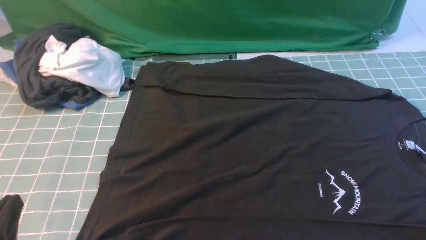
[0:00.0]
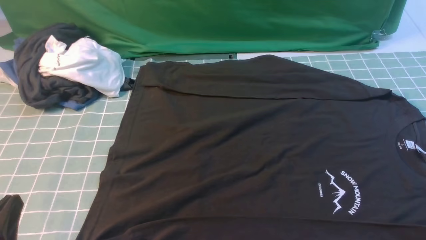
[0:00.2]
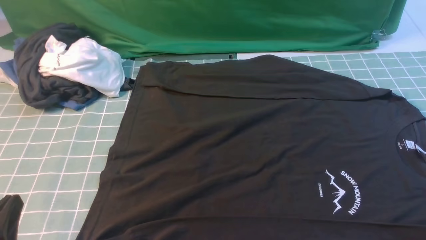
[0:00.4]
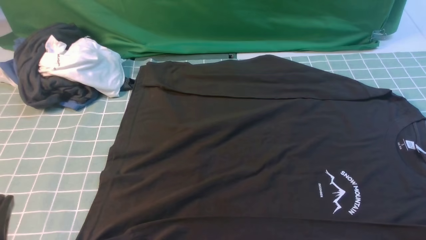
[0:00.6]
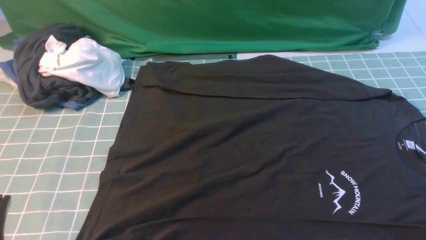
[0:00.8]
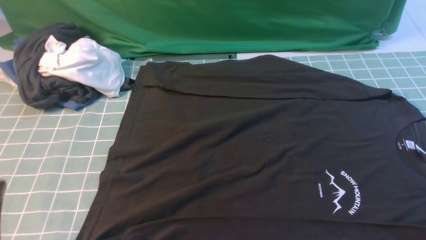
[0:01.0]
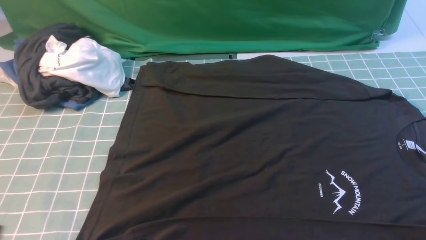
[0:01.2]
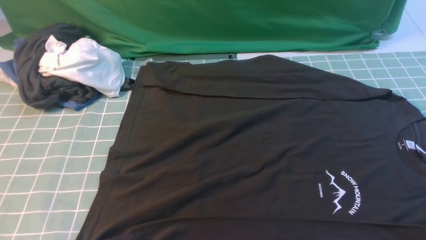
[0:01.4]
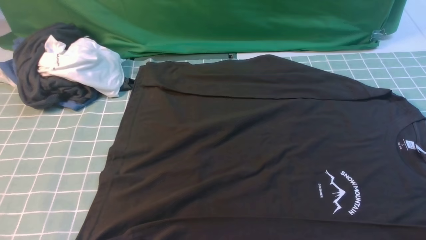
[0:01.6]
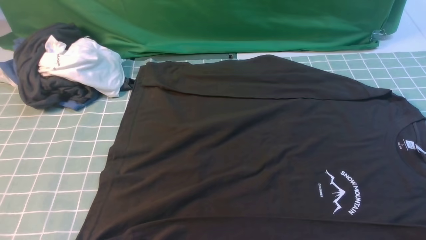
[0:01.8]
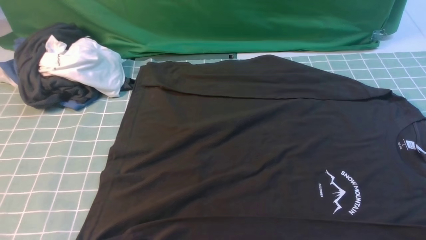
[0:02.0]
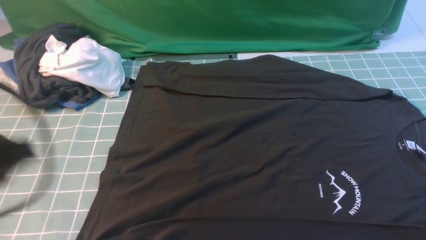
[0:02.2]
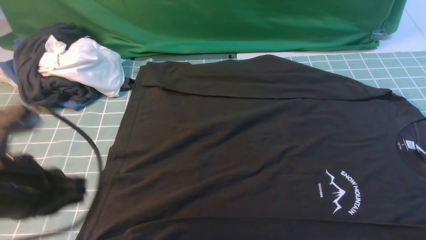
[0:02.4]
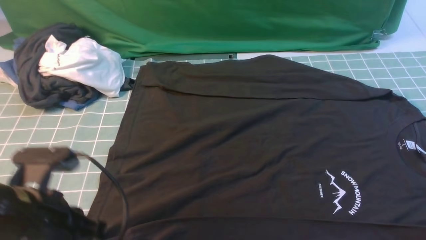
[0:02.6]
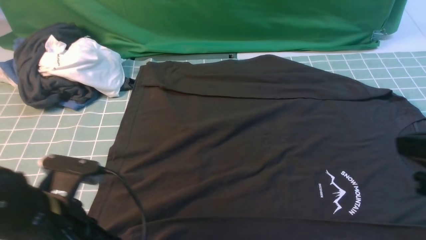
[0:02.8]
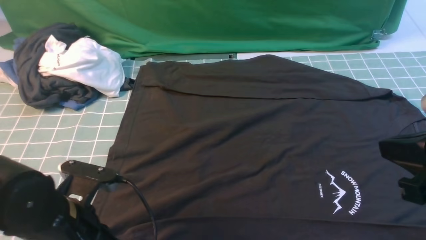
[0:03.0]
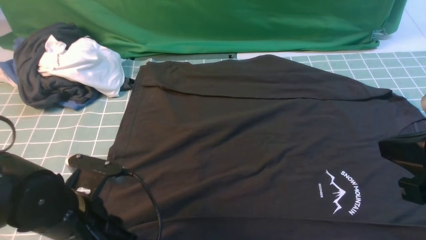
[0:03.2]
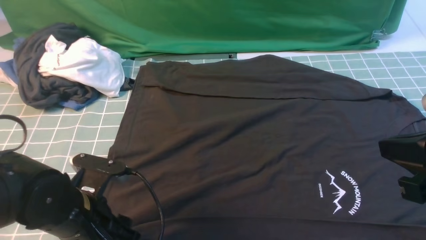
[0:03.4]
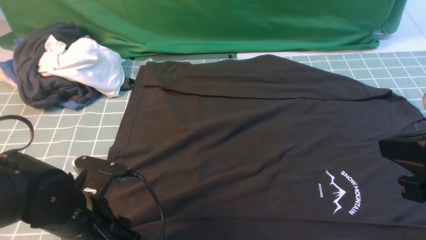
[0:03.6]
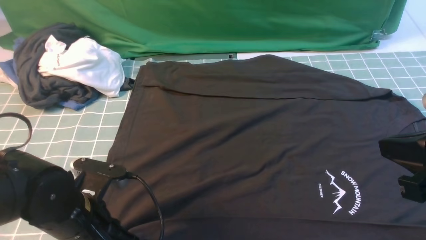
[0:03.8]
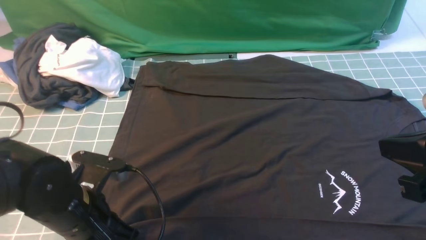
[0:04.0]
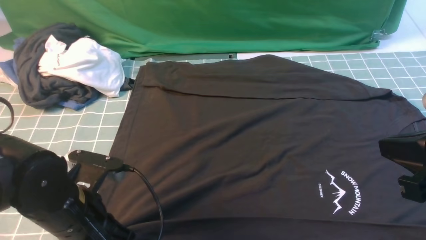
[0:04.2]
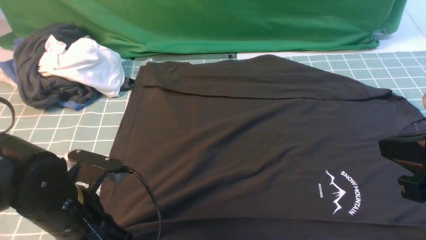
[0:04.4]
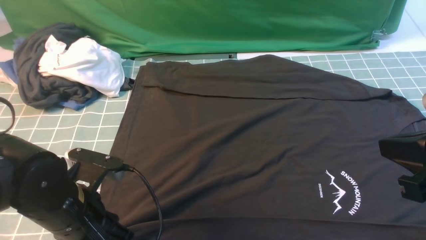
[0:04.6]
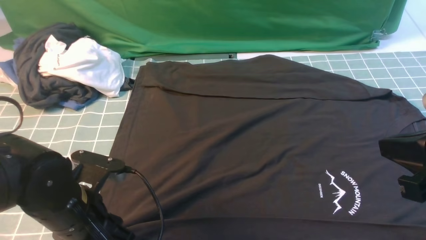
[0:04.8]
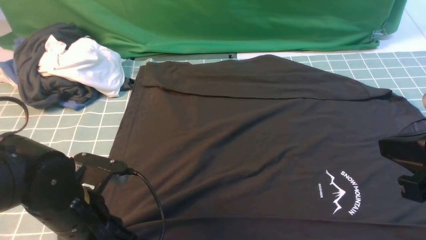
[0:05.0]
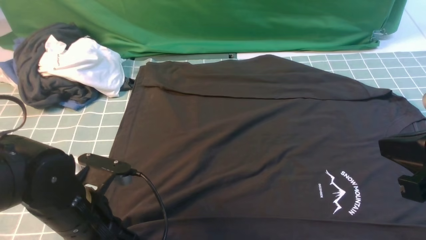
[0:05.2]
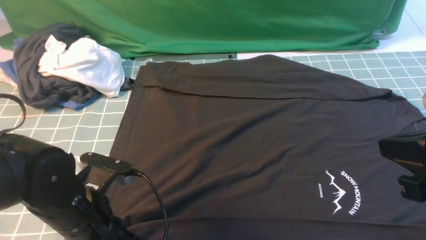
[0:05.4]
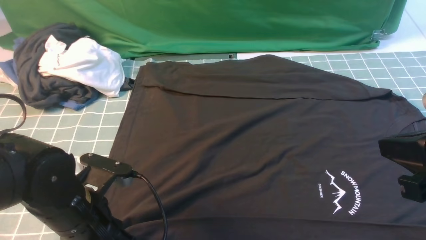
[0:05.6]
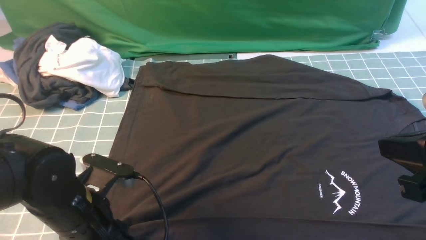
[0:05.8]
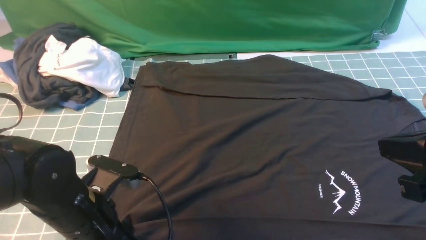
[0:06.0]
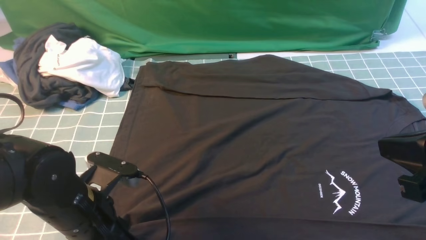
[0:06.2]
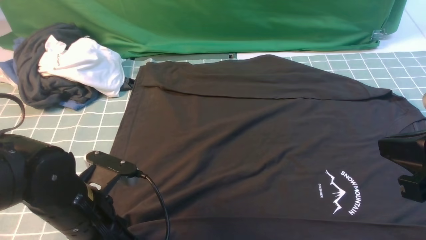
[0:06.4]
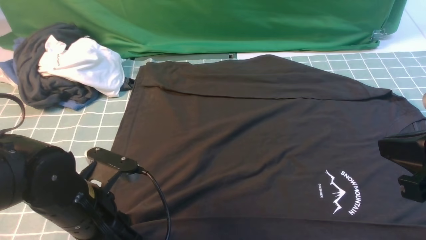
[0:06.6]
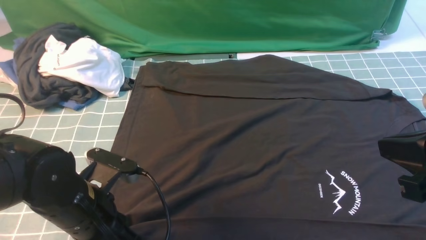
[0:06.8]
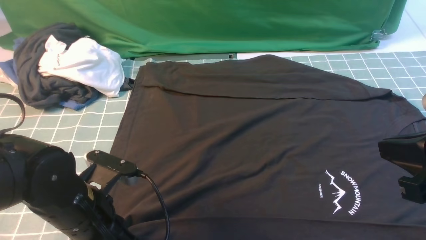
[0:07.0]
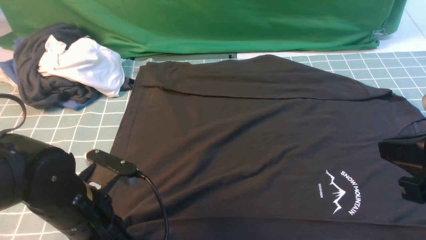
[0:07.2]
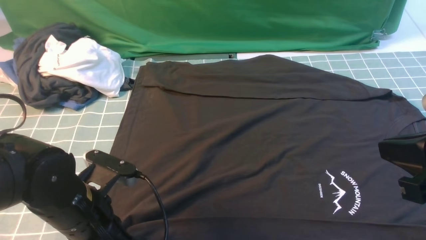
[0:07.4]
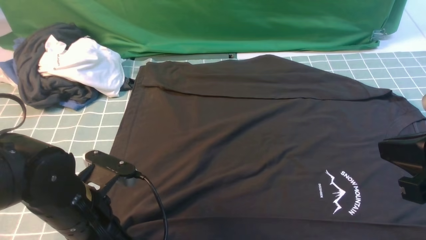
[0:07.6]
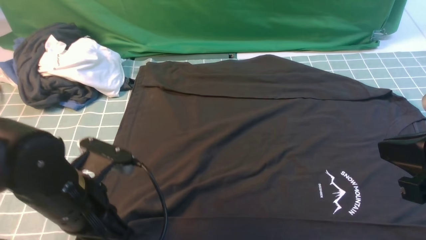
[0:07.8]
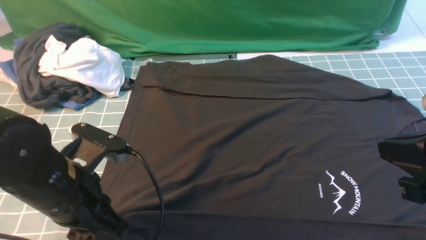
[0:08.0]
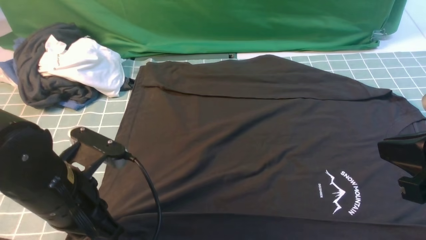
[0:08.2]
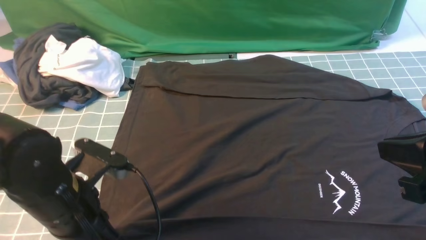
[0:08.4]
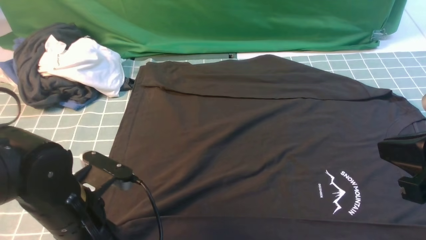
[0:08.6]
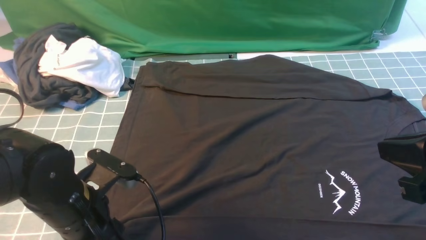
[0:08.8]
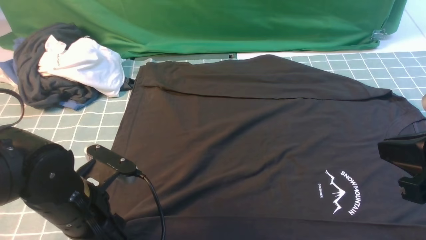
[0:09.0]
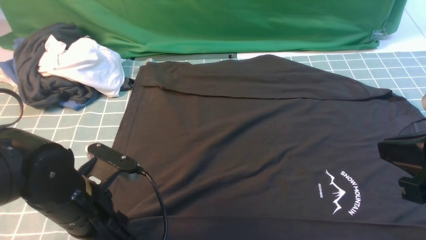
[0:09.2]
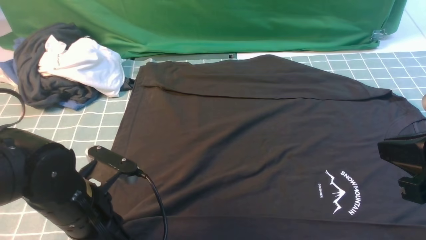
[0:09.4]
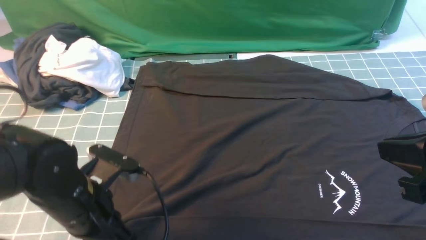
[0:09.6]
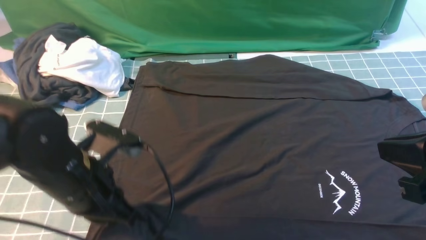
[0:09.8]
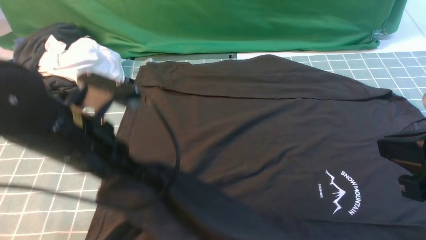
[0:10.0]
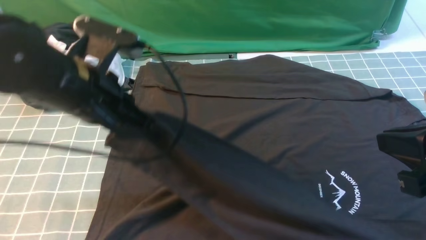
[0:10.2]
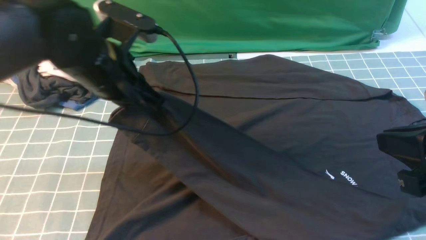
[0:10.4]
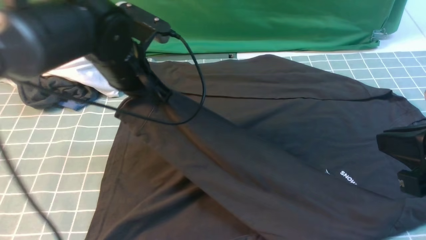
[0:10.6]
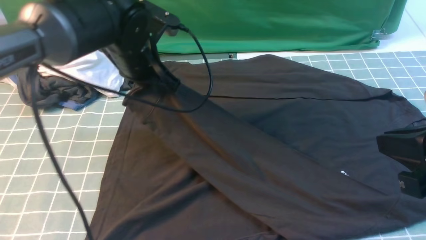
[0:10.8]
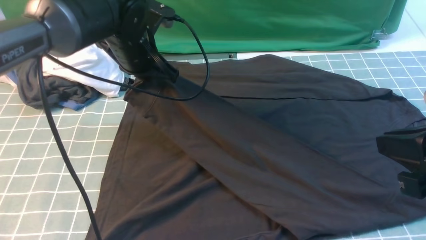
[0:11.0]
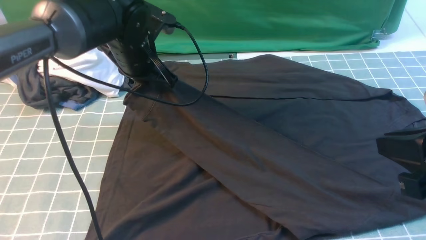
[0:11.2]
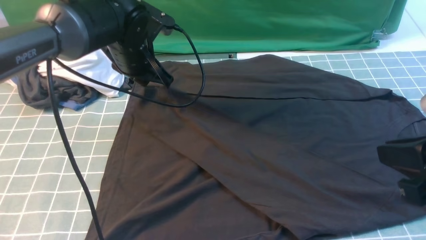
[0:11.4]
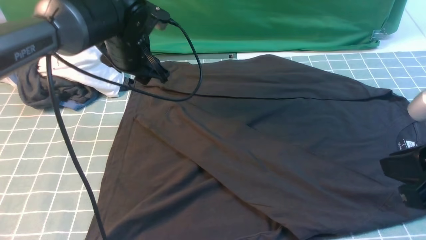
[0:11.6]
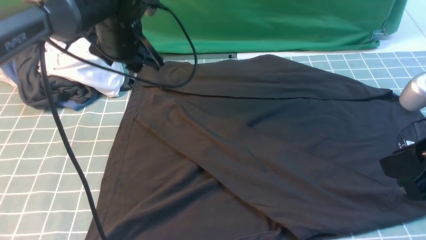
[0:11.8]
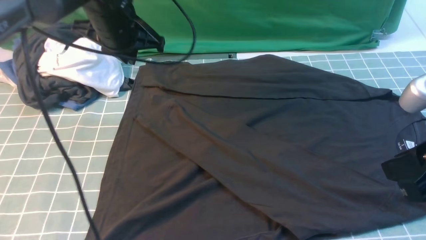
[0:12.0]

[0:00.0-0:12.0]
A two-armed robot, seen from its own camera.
Step, 0:00.0 to 0:09.6: use the left arm to clamp the cuff closest to it.
Step, 0:09.8 to 0:11.6: use the left arm to drag and place the cuff at the centered position on the left edge of the fabric.
0:00.0 to 0:01.6: The left gripper goes approximately 10 cm upward.
0:01.6 to 0:03.0: The left gripper travels forward, downward and to the right by approximately 15 cm, while the right gripper travels upward, to the left and forward by about 15 cm, and closes its fingers.
0:03.0 to 0:04.4: The left gripper opens, then closes again.
0:04.4 to 0:06.0: The left gripper opens its fingers.
0:06.0 to 0:07.6: The left gripper closes its fingers.
0:07.6 to 0:09.0: The left gripper opens up.
0:09.0 to 0:10.4: The left gripper shifts some 15 cm forward and upward, and closes up.
0:10.4 to 0:12.0: The left gripper moves forward, some 10 cm, and opens, then closes again.

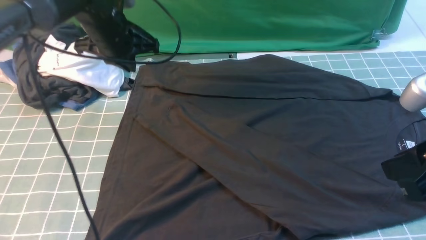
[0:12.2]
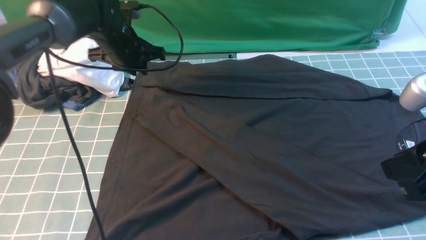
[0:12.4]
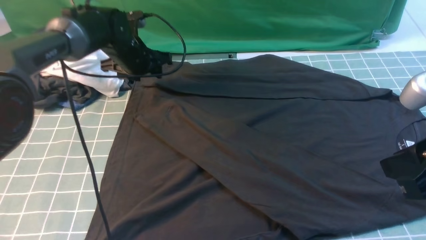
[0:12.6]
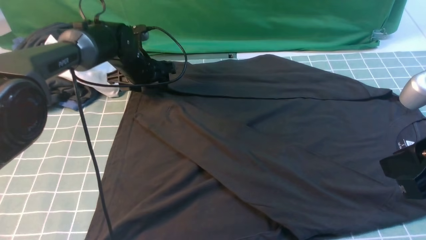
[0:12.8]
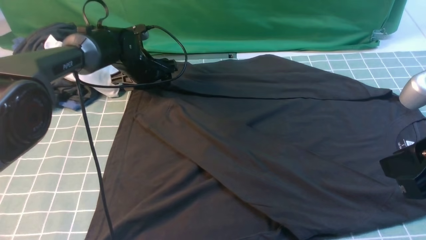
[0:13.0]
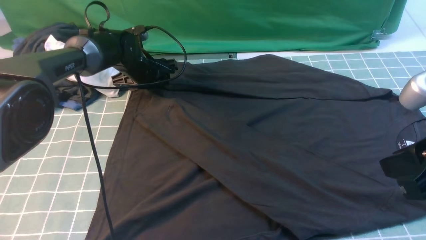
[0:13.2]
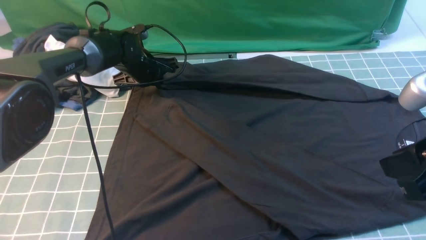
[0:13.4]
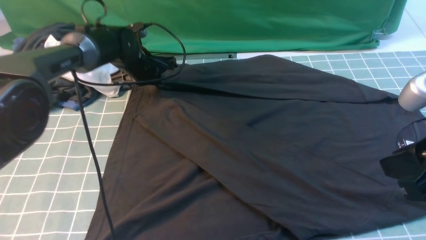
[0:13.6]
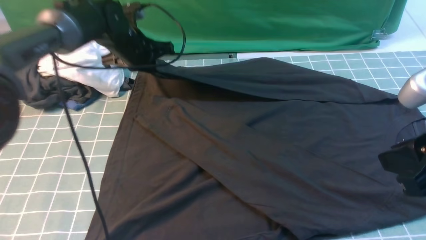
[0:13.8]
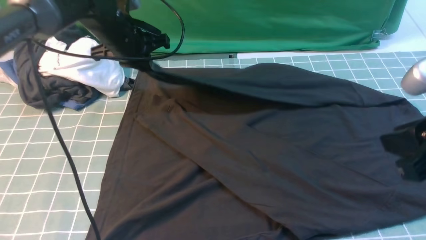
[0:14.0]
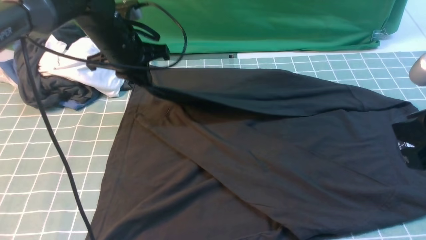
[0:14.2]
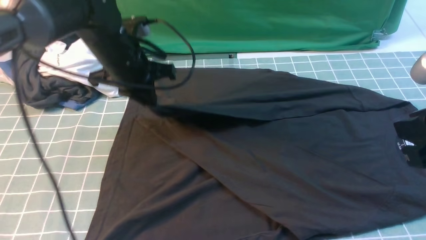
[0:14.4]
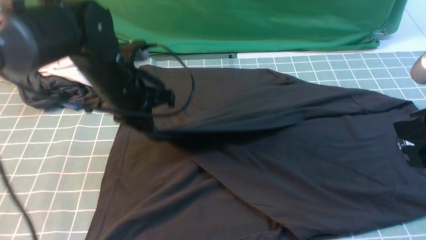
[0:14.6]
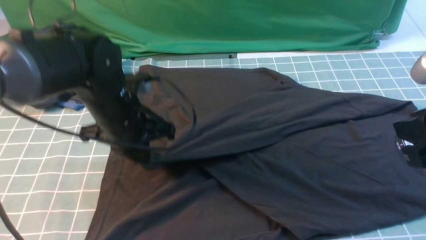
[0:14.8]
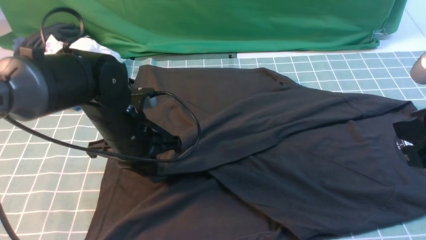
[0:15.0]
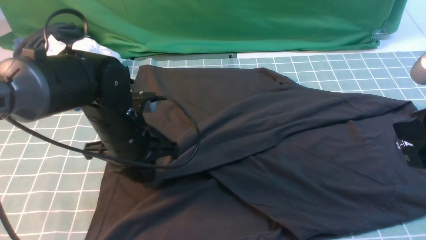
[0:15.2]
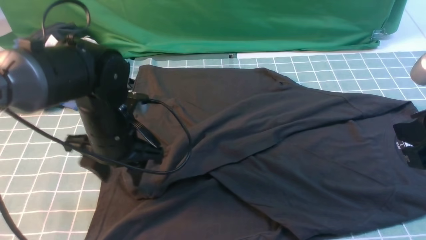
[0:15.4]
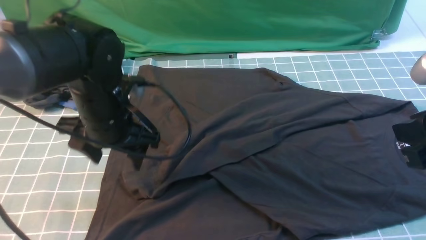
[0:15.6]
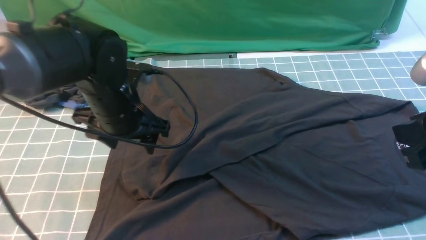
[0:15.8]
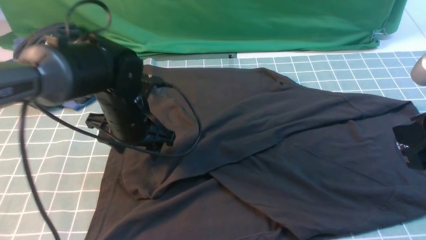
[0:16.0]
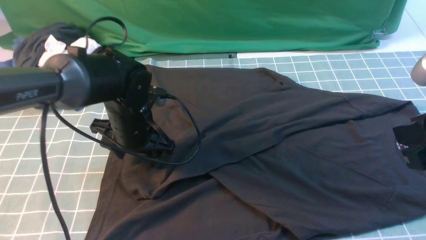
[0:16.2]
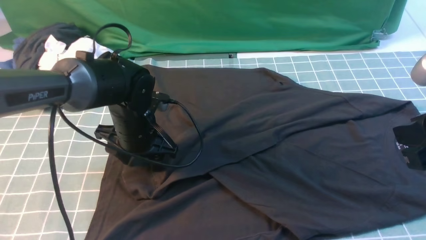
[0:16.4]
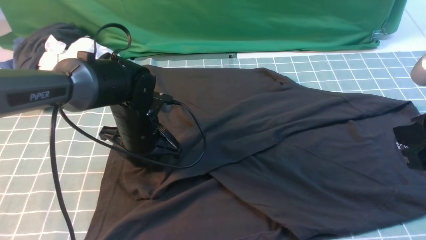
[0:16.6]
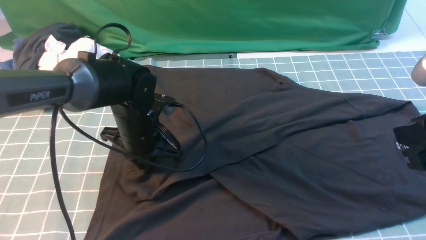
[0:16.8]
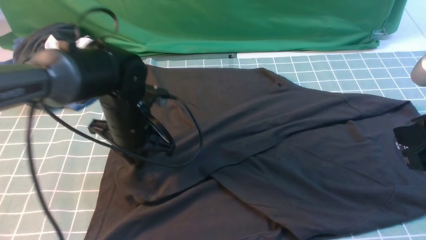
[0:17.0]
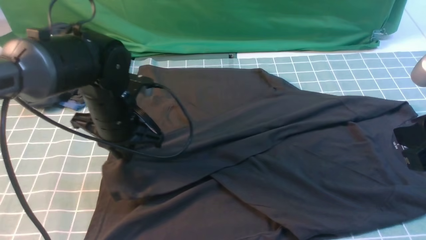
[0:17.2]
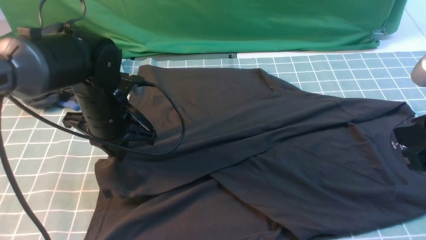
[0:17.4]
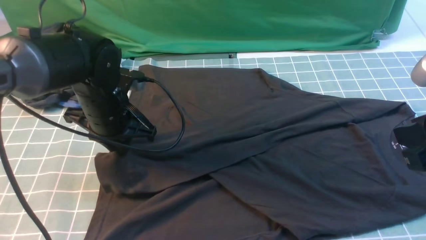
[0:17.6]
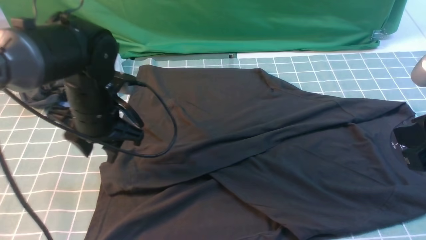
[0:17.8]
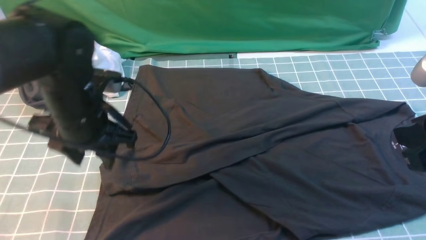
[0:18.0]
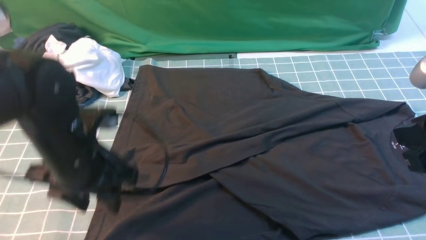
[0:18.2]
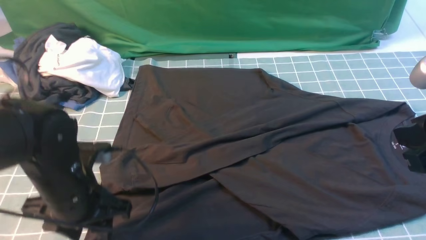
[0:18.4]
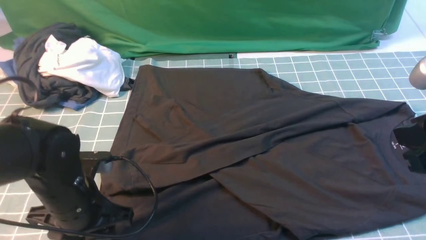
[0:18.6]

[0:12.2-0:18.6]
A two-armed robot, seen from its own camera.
Step, 0:12.2 to 0:13.4: use the left arm to clamp the cuff farthest from it.
Step, 0:13.6 to 0:15.2: use the left arm to drag and drop the cuff onto the cuff closest to the left arm.
0:12.2 to 0:13.8: The left gripper travels downward and back again, some 10 cm each way, and opens, then closes once more.
0:13.8 to 0:15.4: The left gripper is displaced backward by roughly 20 cm, and opens.
0:15.4 to 0:17.0: The left gripper closes up.
0:17.0 to 0:18.6: The left gripper travels backward by roughly 10 cm, and opens its fingers.
